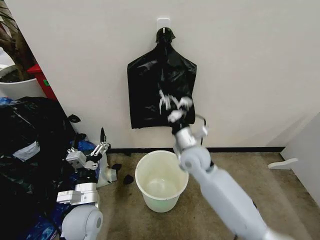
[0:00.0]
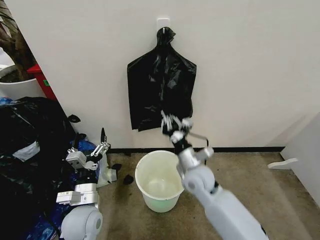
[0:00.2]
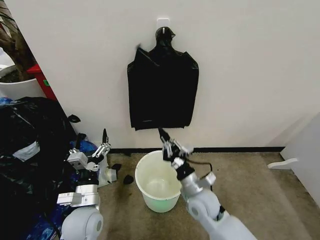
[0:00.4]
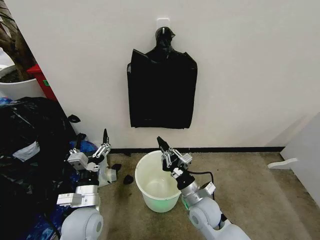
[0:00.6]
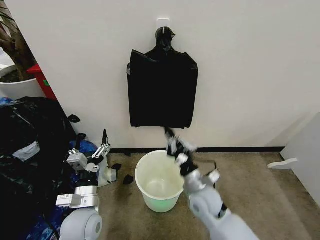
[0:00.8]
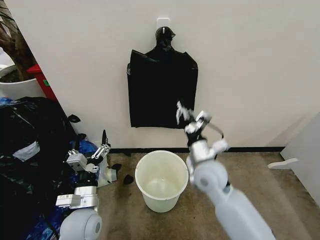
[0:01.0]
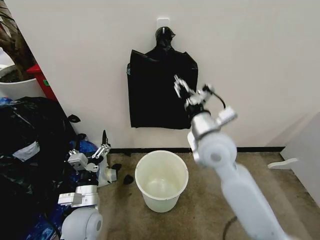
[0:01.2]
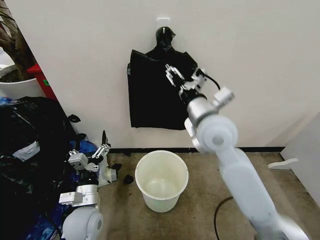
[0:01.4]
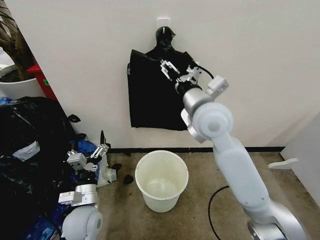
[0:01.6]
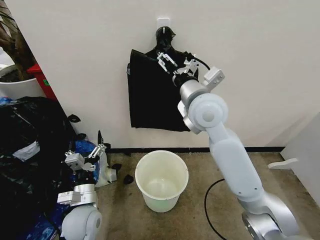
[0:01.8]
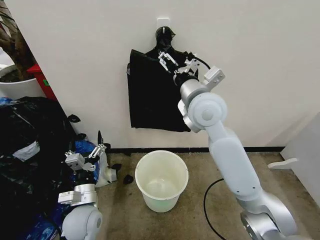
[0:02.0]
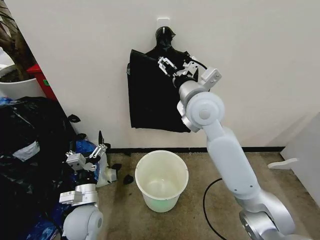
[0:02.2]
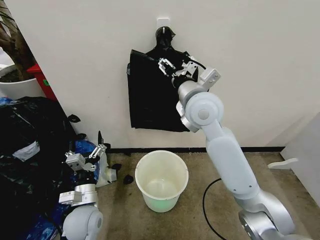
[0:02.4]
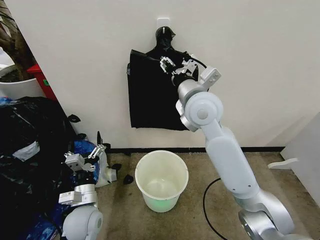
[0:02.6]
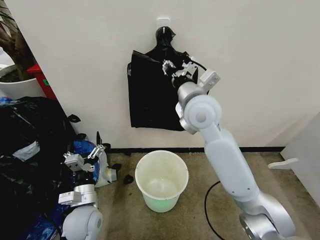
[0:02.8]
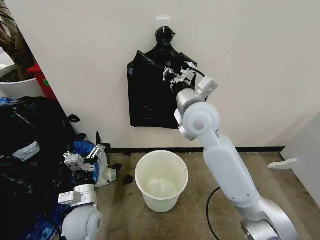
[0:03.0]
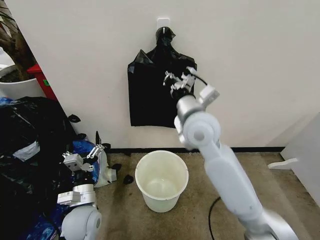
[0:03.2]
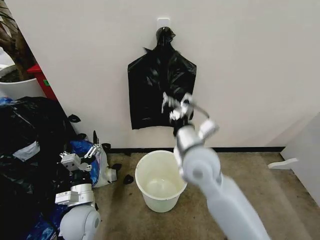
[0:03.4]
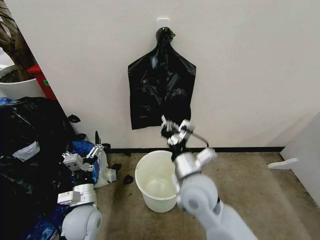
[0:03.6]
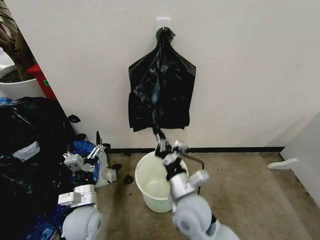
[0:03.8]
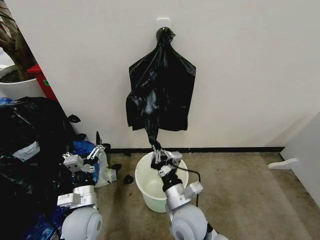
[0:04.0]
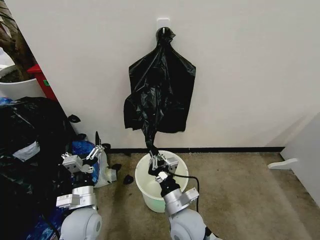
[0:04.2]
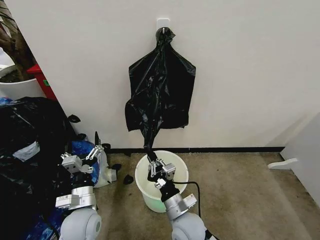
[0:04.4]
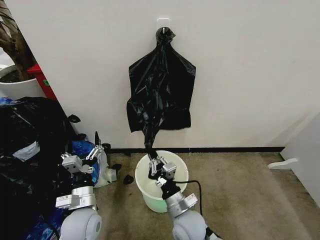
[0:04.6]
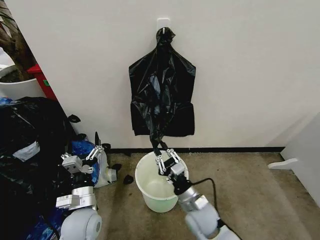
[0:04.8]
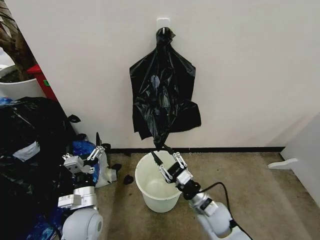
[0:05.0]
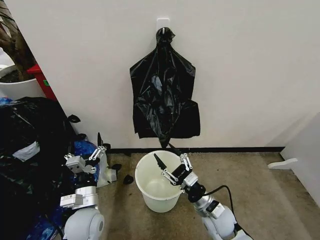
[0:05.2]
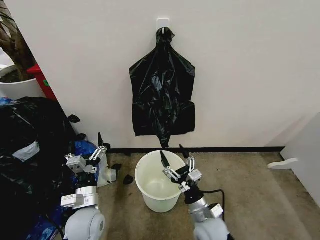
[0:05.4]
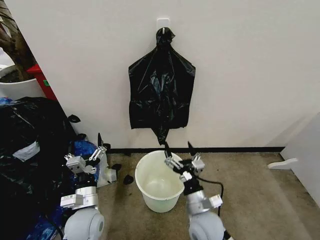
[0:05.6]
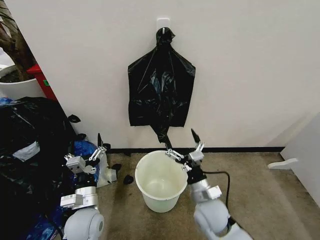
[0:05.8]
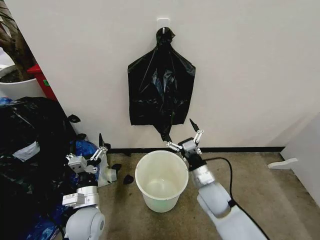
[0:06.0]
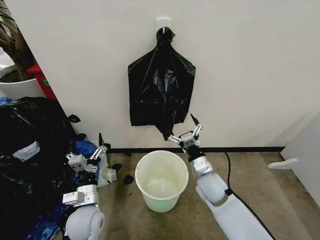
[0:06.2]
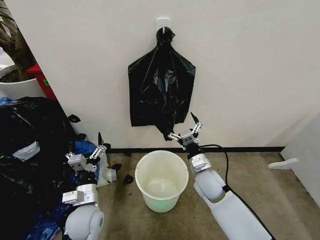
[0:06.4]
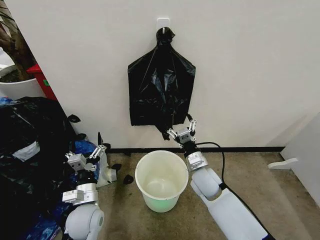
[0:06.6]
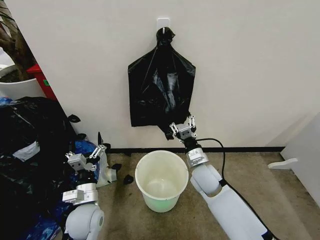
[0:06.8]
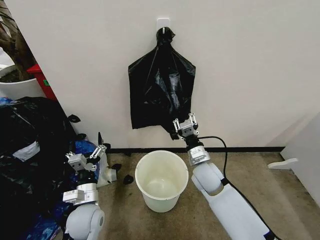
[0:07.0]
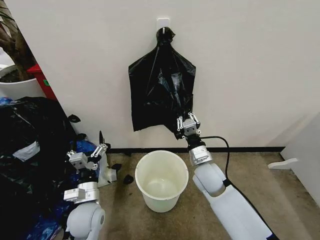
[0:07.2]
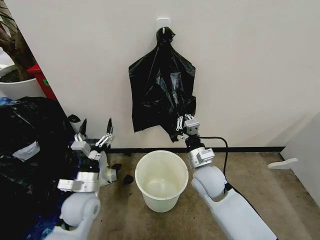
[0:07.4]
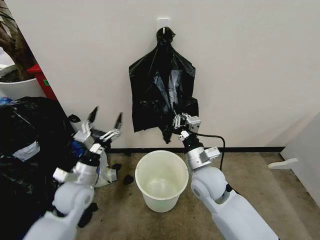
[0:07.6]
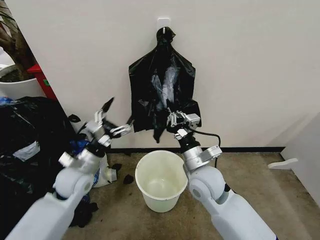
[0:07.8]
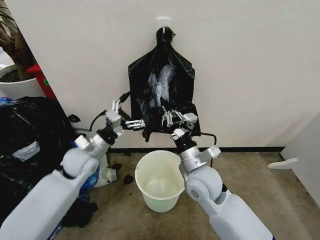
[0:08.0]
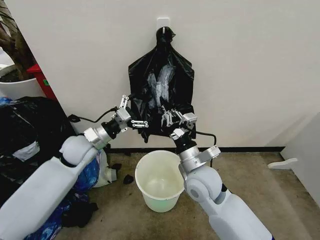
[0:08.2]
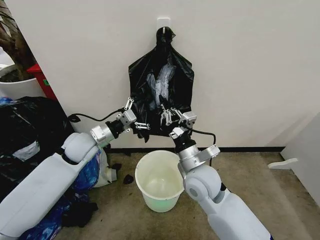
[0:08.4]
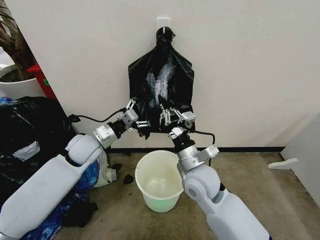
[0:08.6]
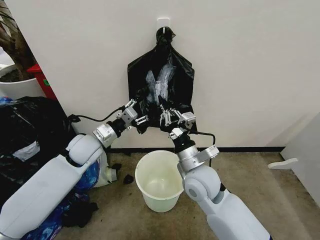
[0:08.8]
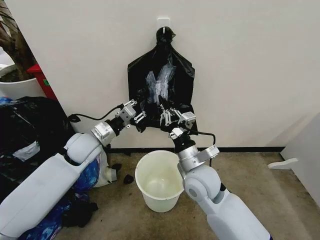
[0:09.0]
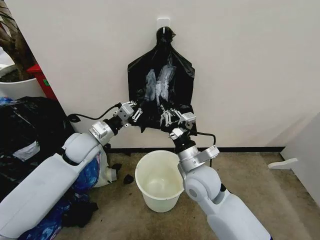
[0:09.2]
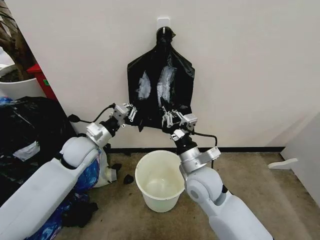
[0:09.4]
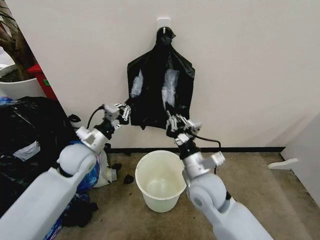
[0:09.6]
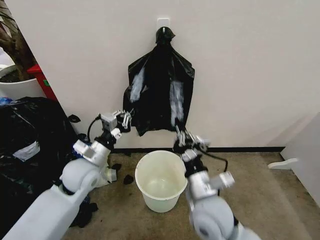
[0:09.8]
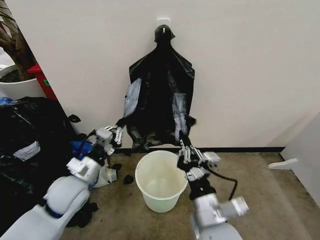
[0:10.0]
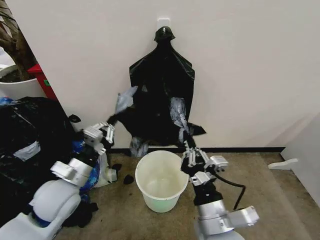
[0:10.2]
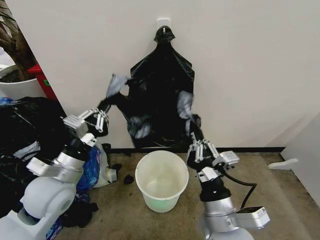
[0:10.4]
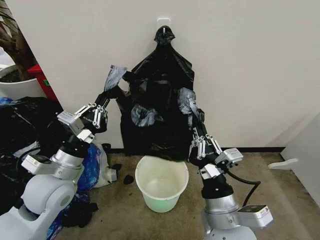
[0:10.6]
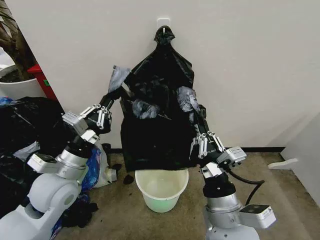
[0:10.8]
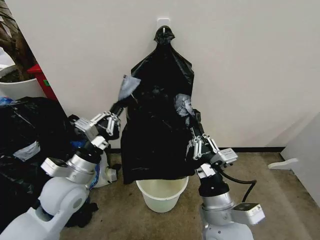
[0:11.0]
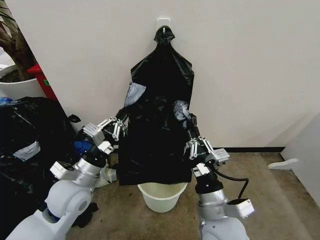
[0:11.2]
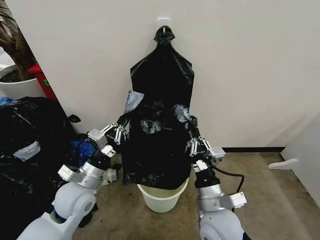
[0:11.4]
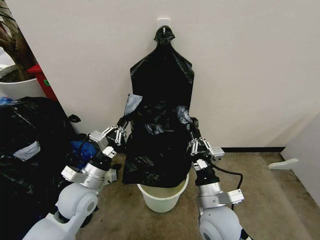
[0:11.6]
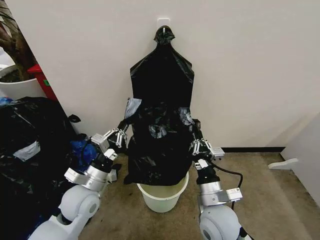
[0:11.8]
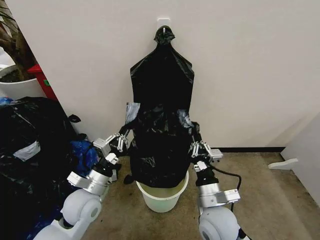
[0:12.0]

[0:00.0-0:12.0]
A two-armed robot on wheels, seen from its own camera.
Task of the whole recording: Place the garbage bag over the trash bin.
0:00.0 to 0:01.6: The right gripper moves upward, roughly 20 cm, and opens.
0:01.6 to 0:03.0: The right gripper closes.
0:03.0 to 0:04.4: The right gripper shifts roughly 35 cm downward and backward.
0:04.4 to 0:06.0: The right gripper moves to the right and forward, approximately 10 cm, and opens up.
0:06.0 to 0:07.6: The right gripper moves upward, some 10 cm, and closes up. The left gripper goes roughly 10 cm forward and upward.
0:07.6 to 0:09.0: The left gripper moves forward and upward, approximately 15 cm, and closes up.
0:09.0 to 0:10.4: Both grippers travel together backward, approximately 15 cm.
0:10.4 to 0:12.0: The left gripper travels downward by about 10 cm, while the right gripper travels downward and forward by roughly 10 cm.

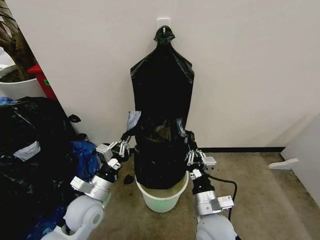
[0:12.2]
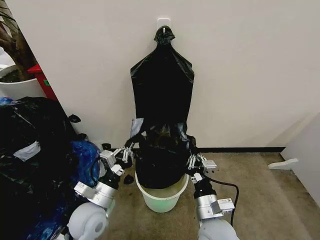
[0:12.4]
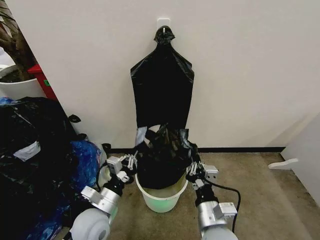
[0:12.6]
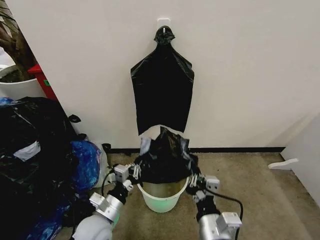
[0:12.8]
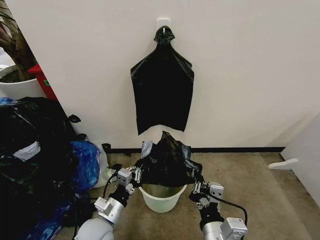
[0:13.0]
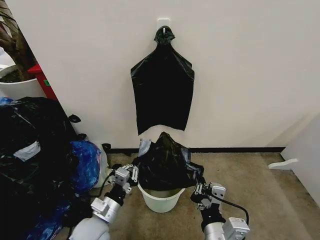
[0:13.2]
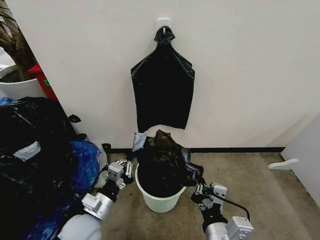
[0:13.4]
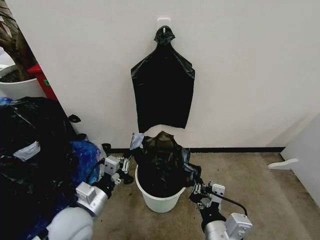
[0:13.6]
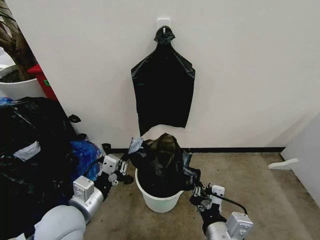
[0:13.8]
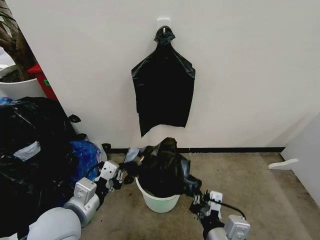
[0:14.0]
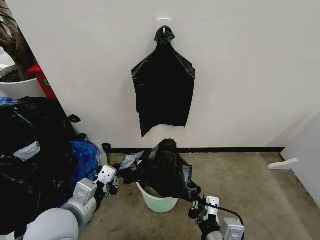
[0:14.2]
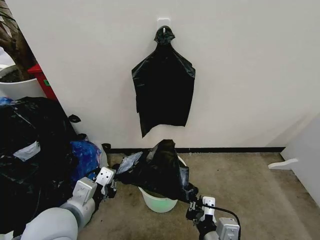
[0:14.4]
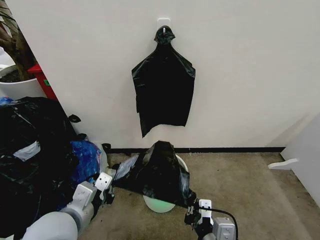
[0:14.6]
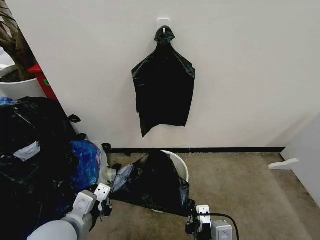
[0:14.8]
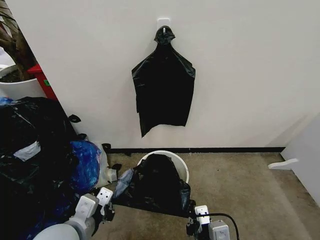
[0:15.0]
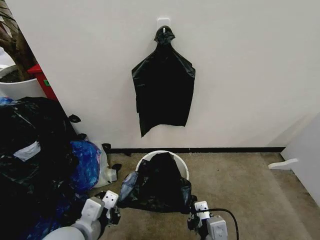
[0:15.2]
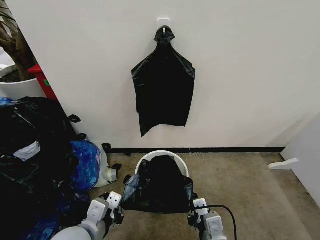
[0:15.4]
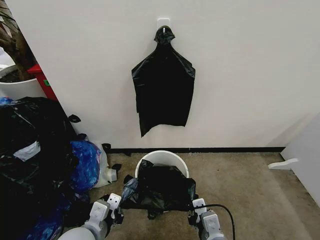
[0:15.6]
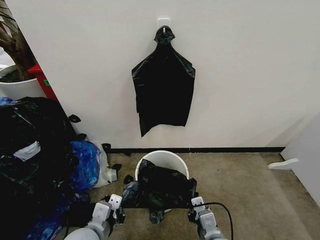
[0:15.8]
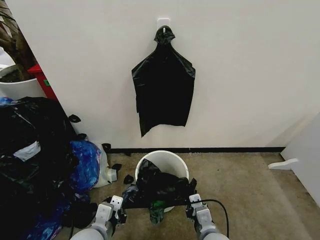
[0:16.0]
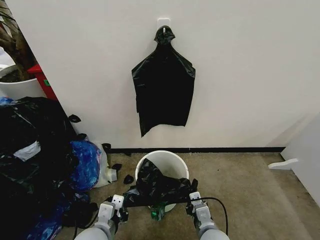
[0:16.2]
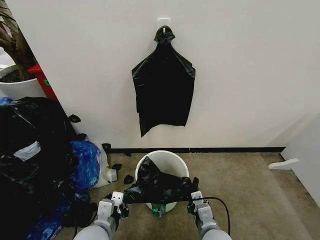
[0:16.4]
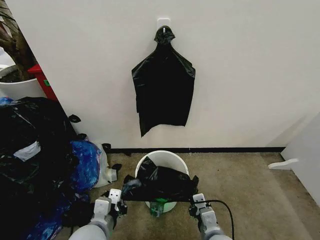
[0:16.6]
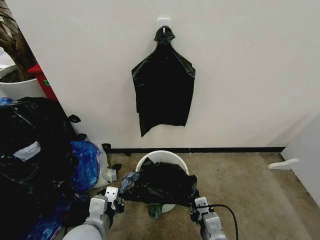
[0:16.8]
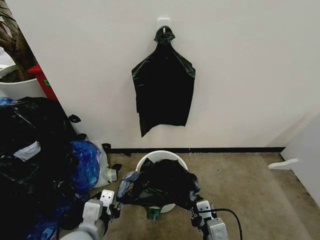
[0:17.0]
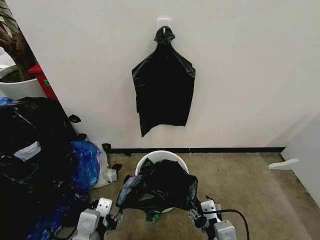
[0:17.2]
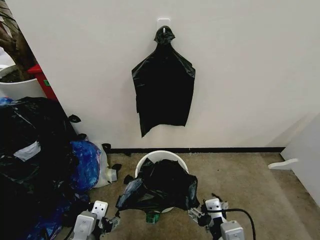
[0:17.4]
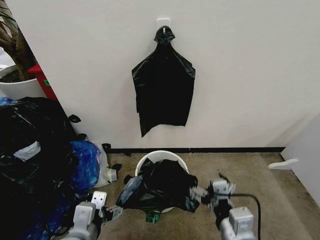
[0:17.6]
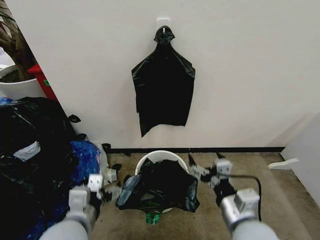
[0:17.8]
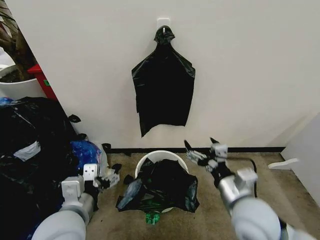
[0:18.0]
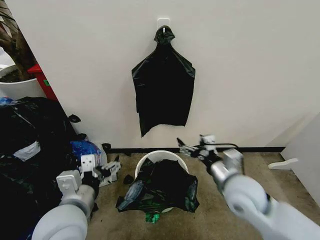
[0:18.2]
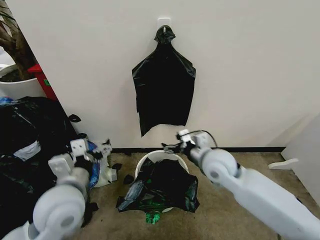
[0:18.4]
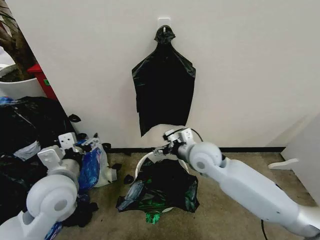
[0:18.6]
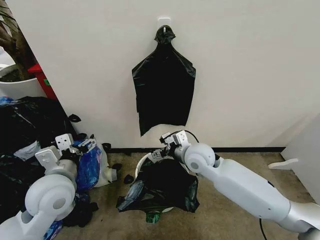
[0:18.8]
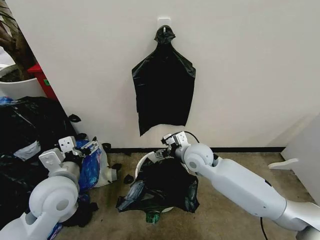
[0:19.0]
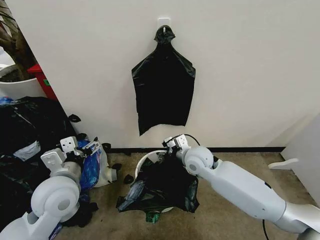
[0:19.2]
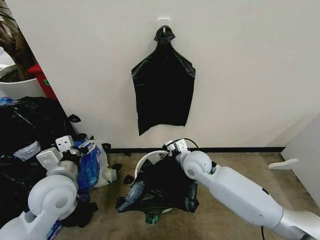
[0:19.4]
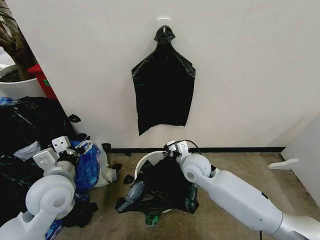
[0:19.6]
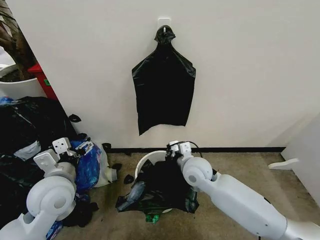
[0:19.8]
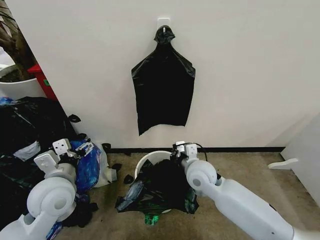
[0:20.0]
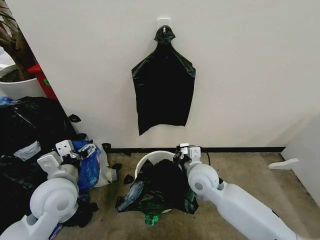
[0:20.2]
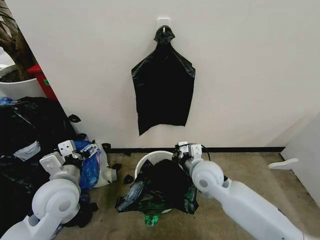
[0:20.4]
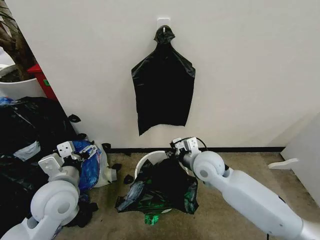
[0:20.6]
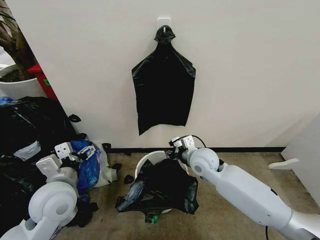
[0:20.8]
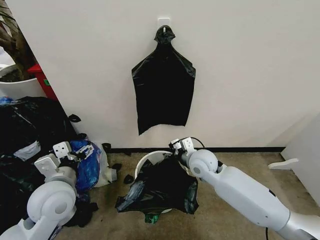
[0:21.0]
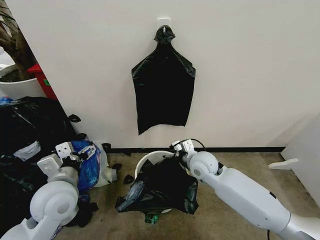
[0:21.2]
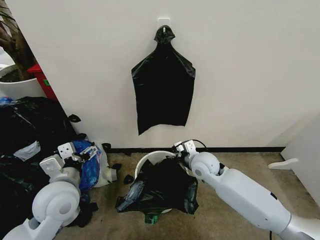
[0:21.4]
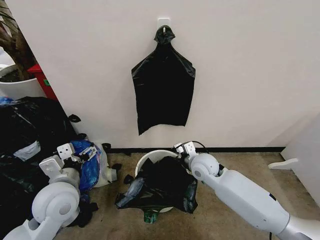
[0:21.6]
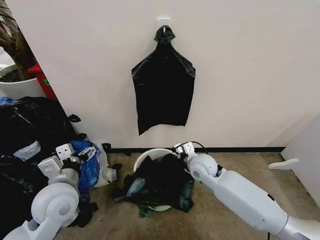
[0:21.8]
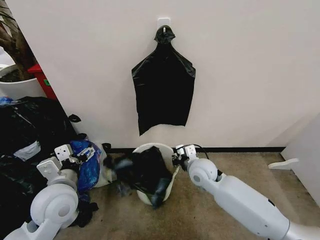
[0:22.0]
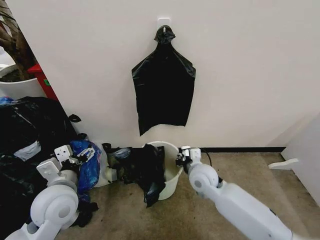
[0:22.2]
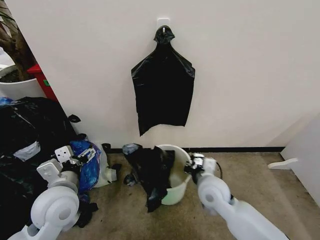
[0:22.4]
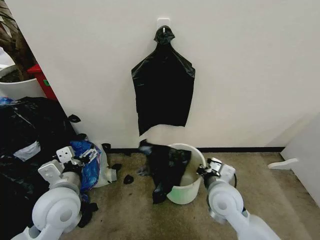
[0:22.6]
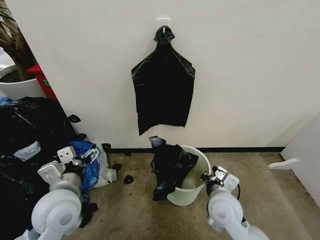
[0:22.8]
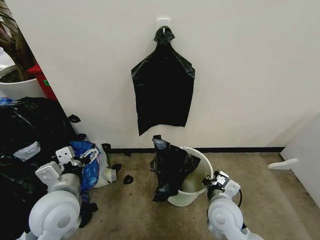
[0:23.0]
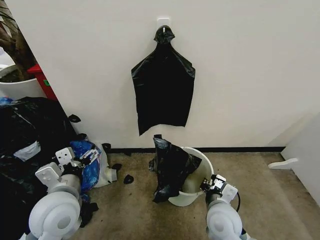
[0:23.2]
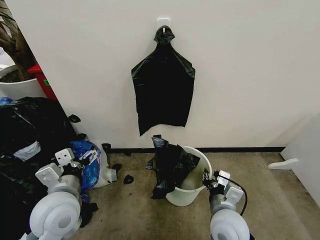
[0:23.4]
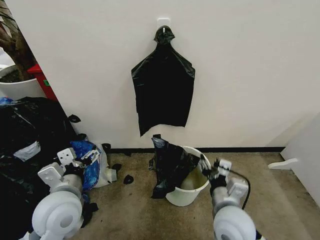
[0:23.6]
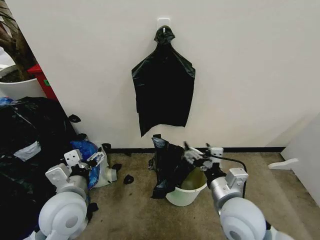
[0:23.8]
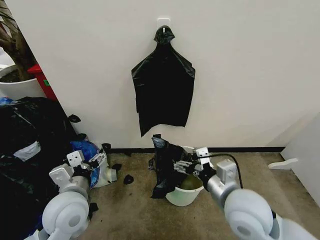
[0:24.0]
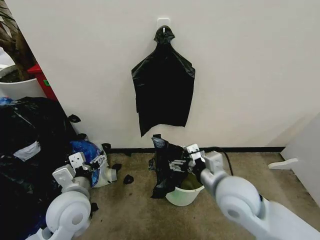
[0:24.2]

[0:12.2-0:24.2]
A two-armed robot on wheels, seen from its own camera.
Task of the whole recording: Place the garbage bag over the trash bin.
0:12.2 to 0:13.8: The right gripper goes some 10 cm backward and upward; the left gripper heads upward and backward, covering some 10 cm.
0:15.2 to 0:16.6: The grippers both shift downward by roughly 10 cm.
0:16.6 to 0:18.2: The right gripper shifts approximately 20 cm upward and forward, and opens, while the left gripper goes about 10 cm upward, and opens.
0:18.2 to 0:19.8: The right gripper goes about 15 cm to the left, forward and downward, and closes. The left gripper is displaced forward and to the left by about 10 cm.
0:19.8 to 0:21.2: The right gripper opens up.
0:21.2 to 0:22.6: The right gripper shifts approximately 10 cm backward, and closes up.
0:22.6 to 0:24.2: The right gripper shifts approximately 10 cm upward, and opens.
